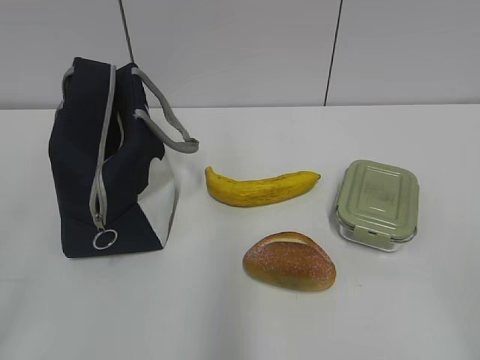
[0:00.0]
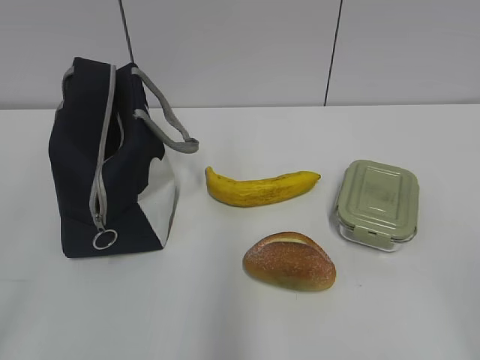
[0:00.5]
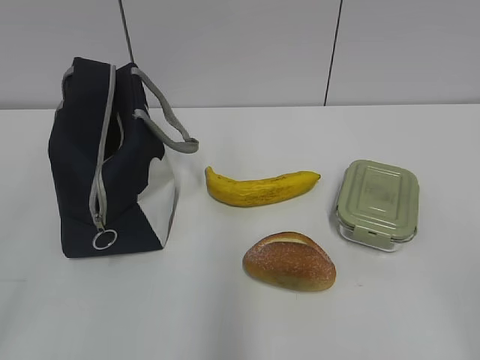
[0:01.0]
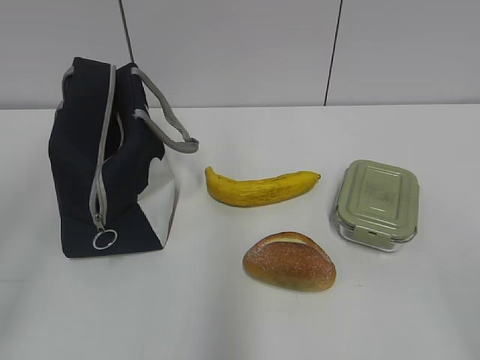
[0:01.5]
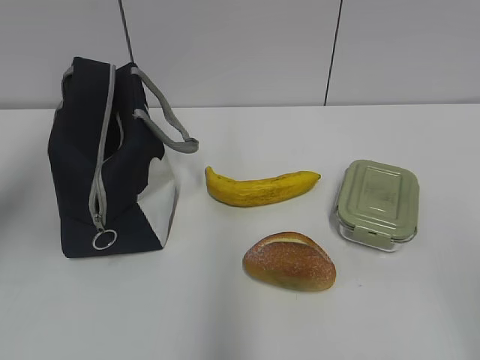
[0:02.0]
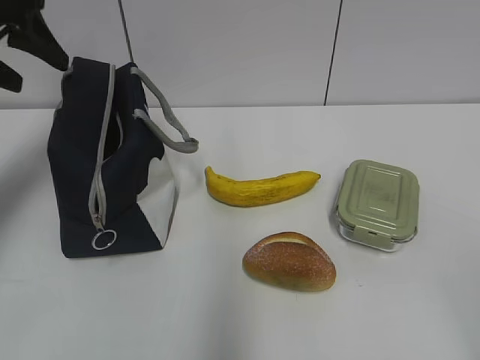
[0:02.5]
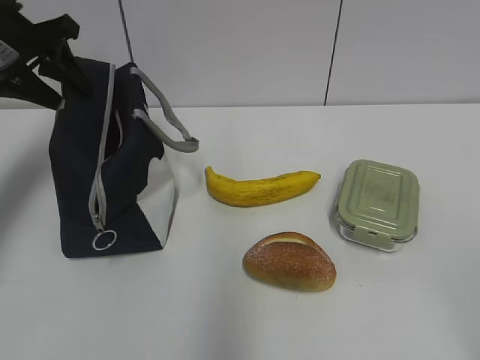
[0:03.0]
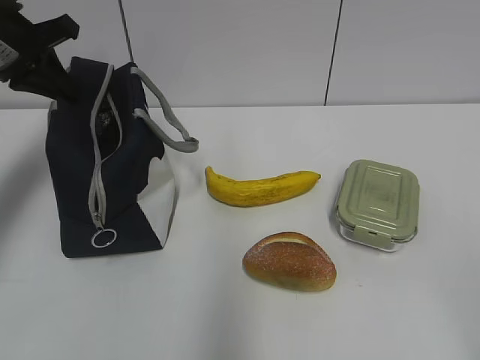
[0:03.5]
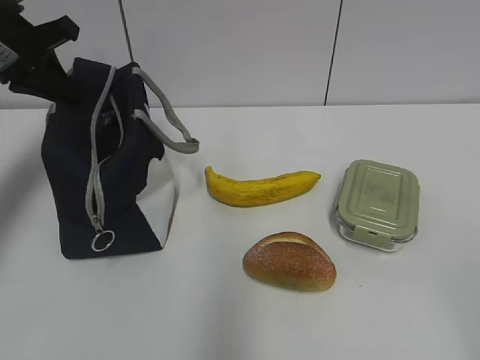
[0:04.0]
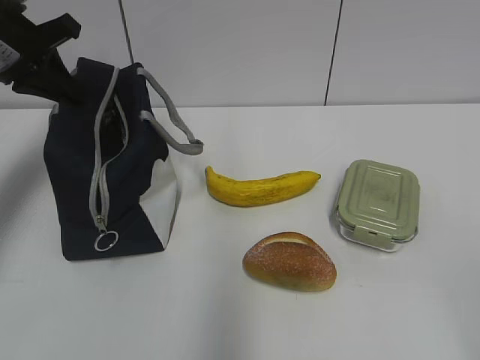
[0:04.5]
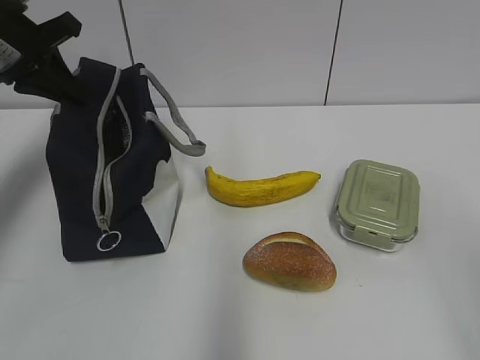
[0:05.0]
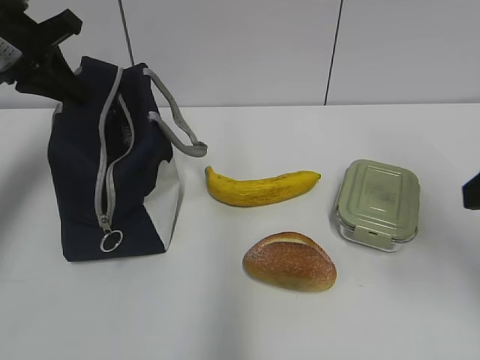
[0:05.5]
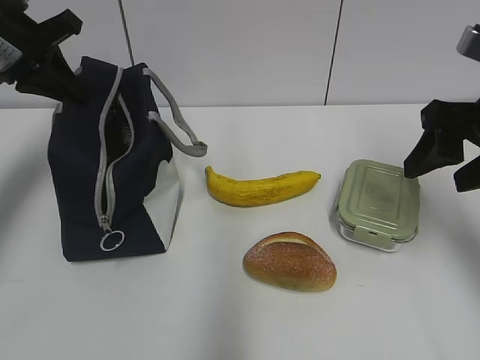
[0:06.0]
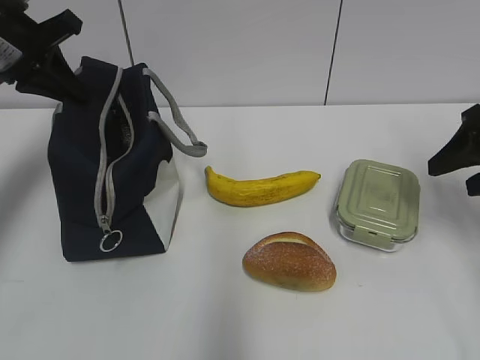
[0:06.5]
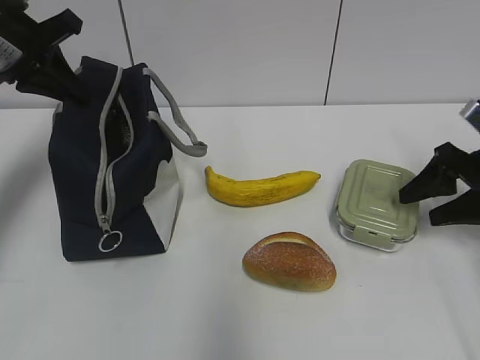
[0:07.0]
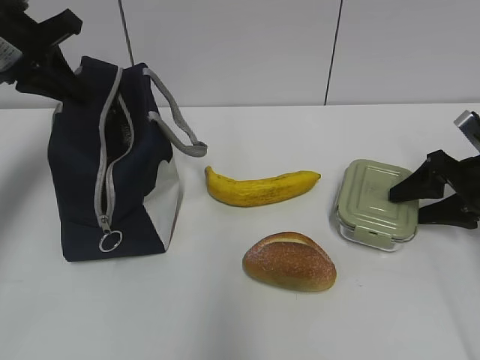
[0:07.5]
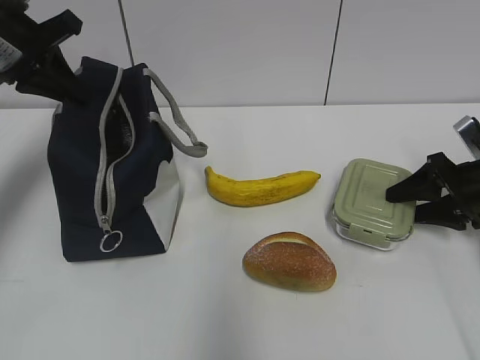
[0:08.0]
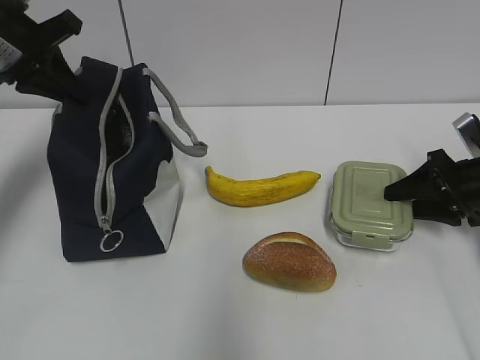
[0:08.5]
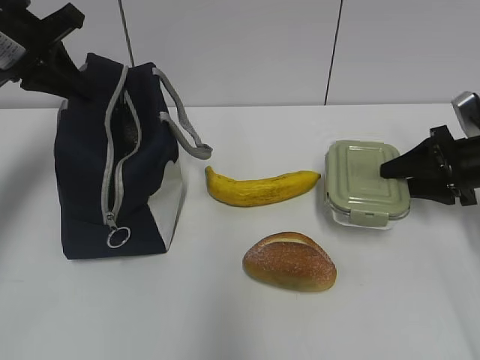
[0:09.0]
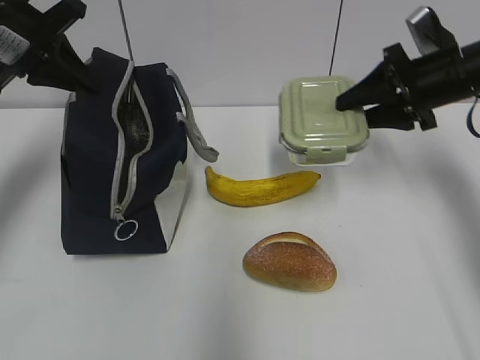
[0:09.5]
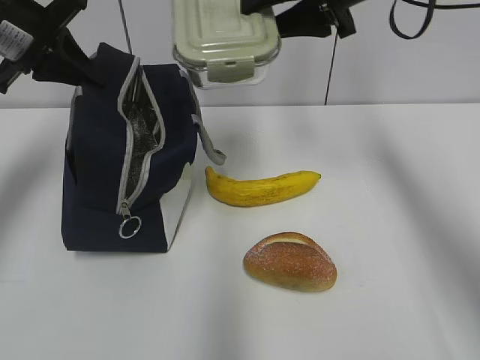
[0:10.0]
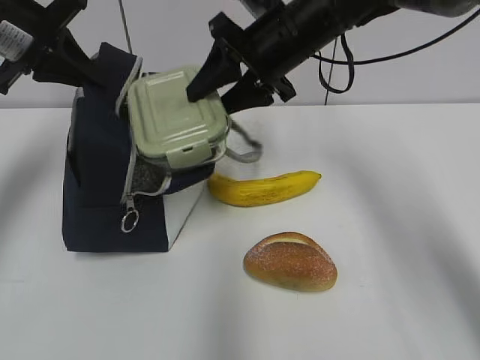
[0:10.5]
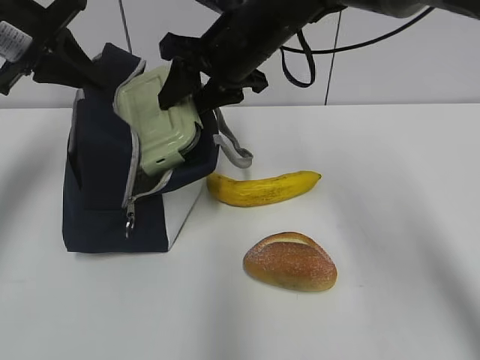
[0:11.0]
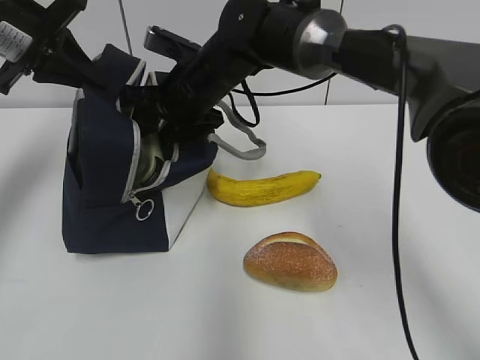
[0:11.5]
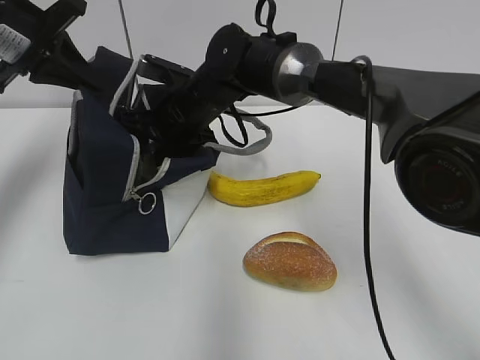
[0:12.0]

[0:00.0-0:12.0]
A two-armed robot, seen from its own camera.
Step, 0:00.0 to 0:08.0: Grab the lunch box with your right hand.
0:02.0 to 0:04.0: The left gripper is displaced forward and downward by approximately 20 cm, and closes its fingers.
0:04.0 to 0:06.0: The right gripper moves forward, some 30 cm.
0:06.0 to 0:08.0: The right gripper moves downward, to the right and forward, approximately 20 cm.
0:08.0 to 0:10.0: The right gripper heads upward and to the left, covering about 30 cm.
0:10.0 to 0:12.0: The right gripper travels to the left and downward by approximately 25 cm.

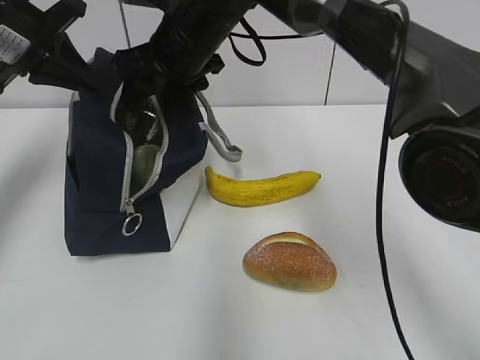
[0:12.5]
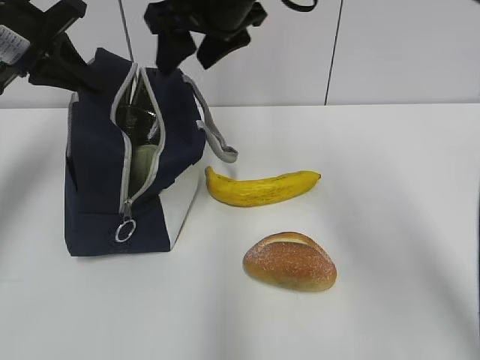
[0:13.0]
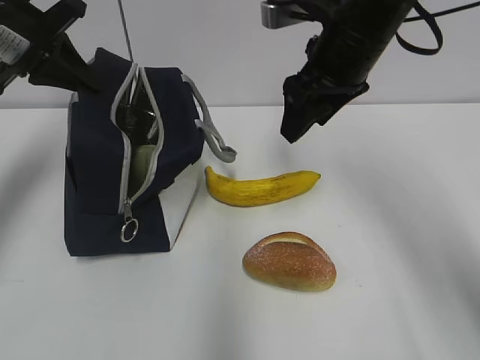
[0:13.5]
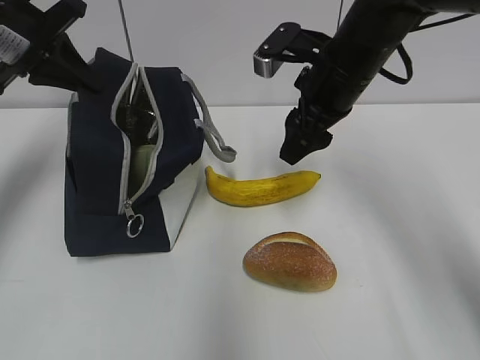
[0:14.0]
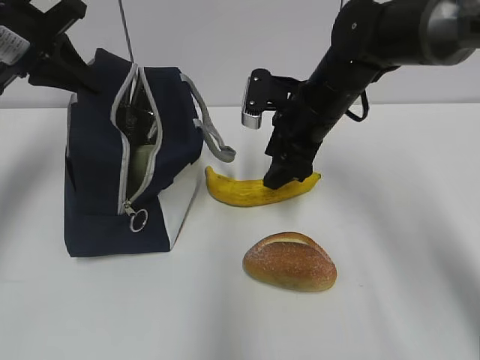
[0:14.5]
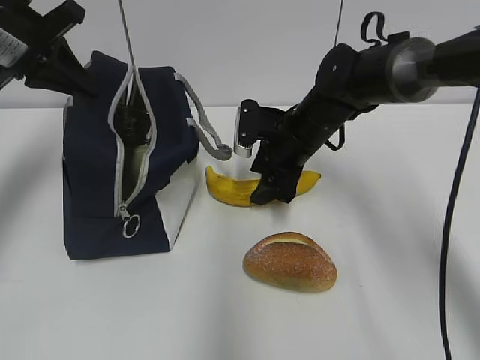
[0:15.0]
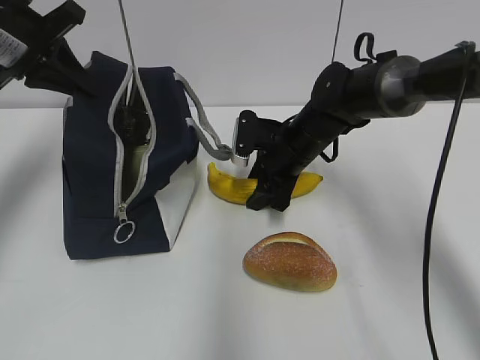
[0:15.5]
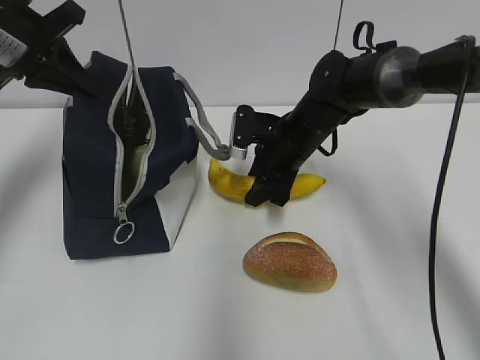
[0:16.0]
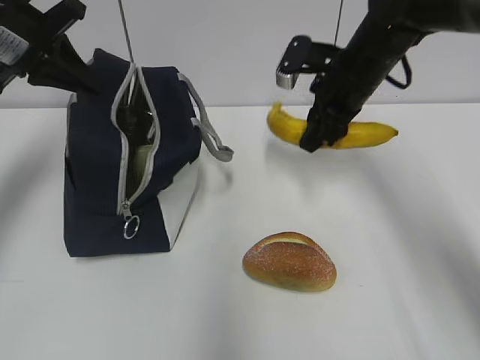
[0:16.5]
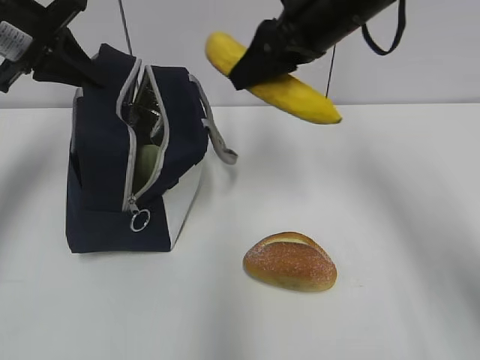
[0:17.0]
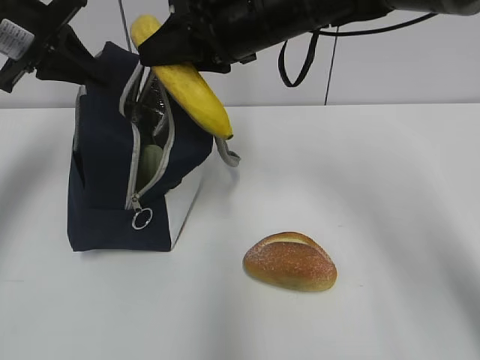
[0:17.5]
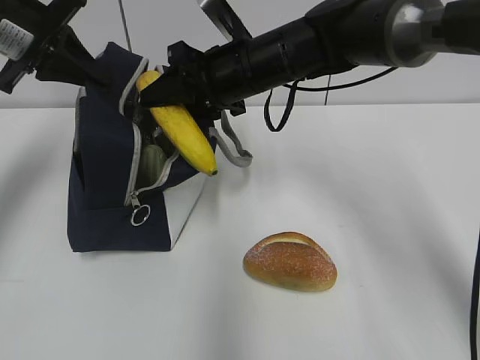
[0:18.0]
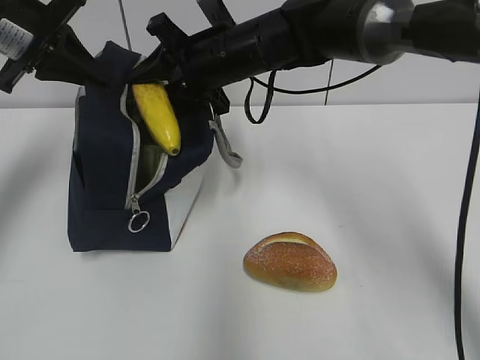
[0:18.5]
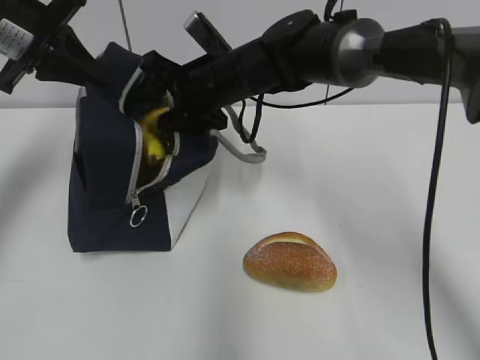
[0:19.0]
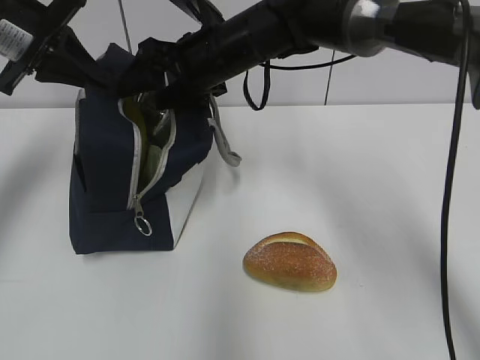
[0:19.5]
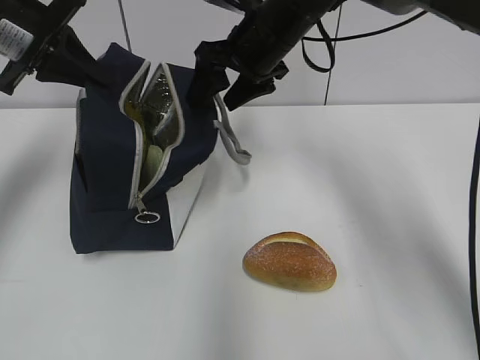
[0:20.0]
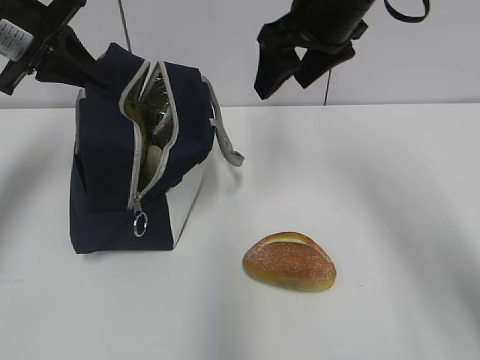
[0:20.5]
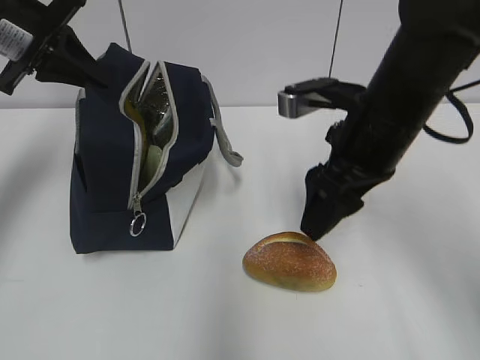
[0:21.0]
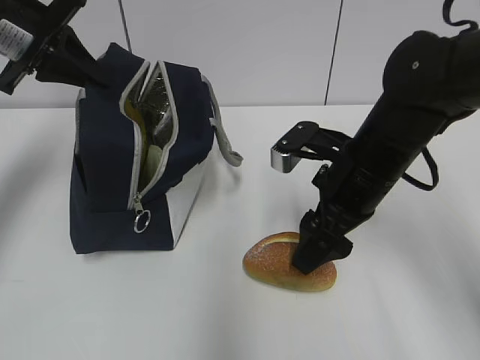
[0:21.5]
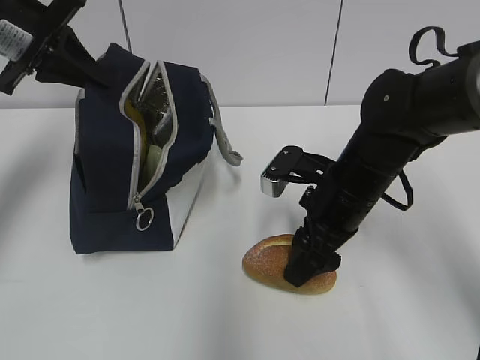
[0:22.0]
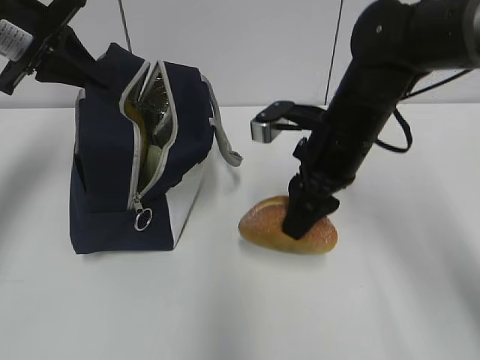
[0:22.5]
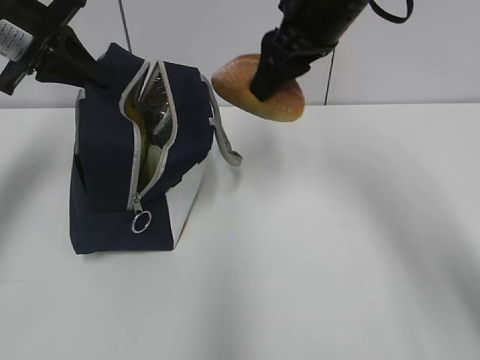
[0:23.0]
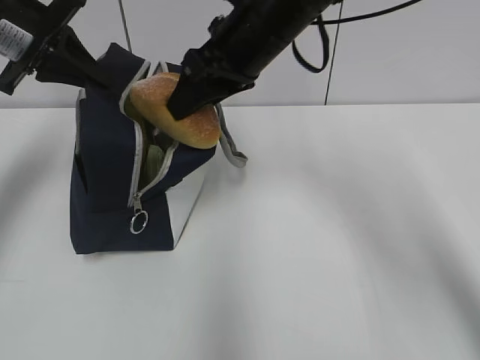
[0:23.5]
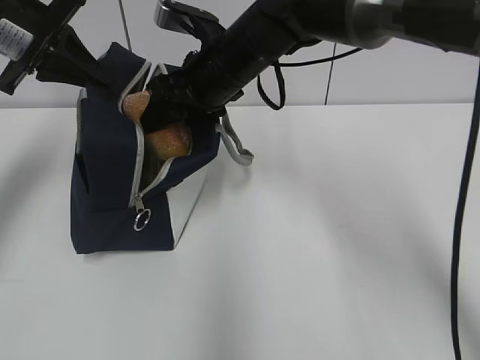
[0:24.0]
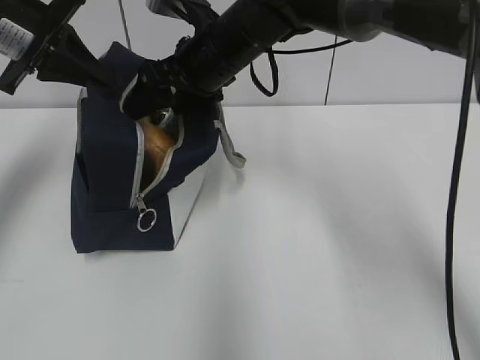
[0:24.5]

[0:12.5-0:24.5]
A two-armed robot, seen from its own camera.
Step, 0:12.5 to 0:15.5: Grab the banana with your right hand.
Step, 0:16.0 to 0:19.0: Place it into the bag with your right hand.
Step, 0:20.0 to 0:22.0: Grab the bread with your right hand.
0:12.5 to 0:14.5: The right gripper travels to the right and downward by approximately 15 cm.
0:14.5 to 0:16.5: The right gripper reaches approximately 5 cm downward, then returns.
0:16.5 to 0:18.5: The right gripper goes some 15 cm to the left.
0:18.5 to 0:20.5: The right gripper travels to the right and upward by some 15 cm, and opens up.
0:20.5 to 0:22.5: The right gripper goes about 15 cm downward and backward, and closes its fingers.
0:22.5 to 0:24.5: The right gripper travels to the left, forward and upward by about 15 cm, and opens.

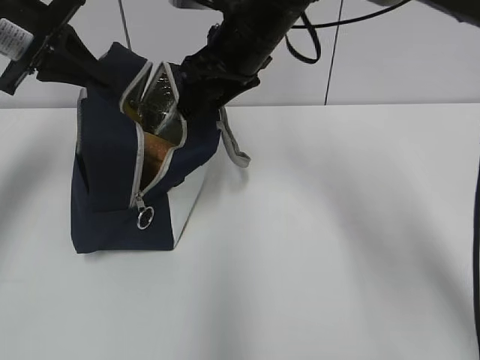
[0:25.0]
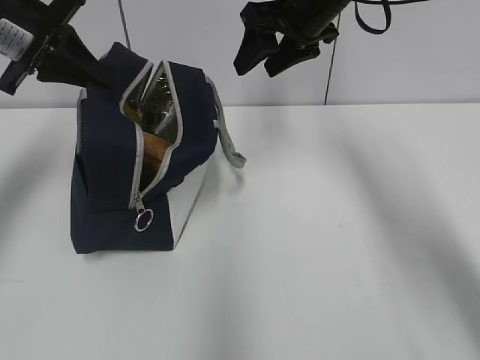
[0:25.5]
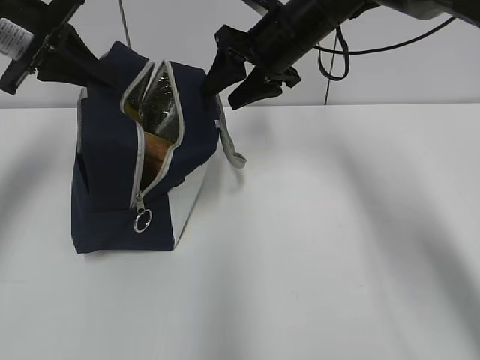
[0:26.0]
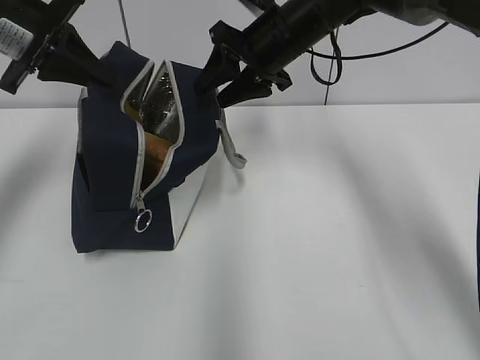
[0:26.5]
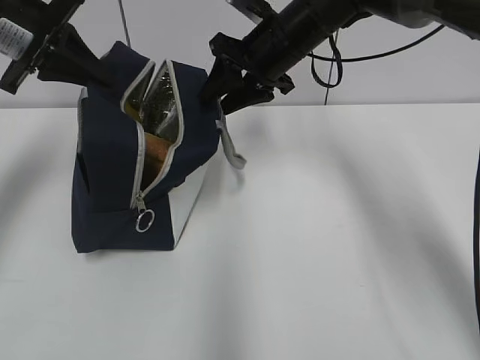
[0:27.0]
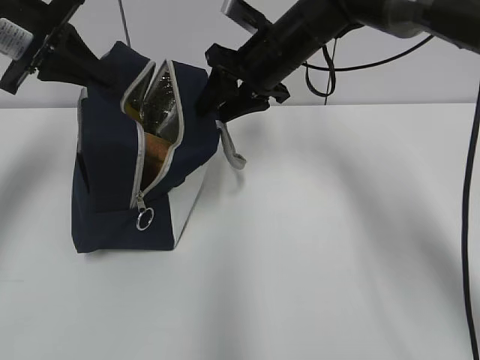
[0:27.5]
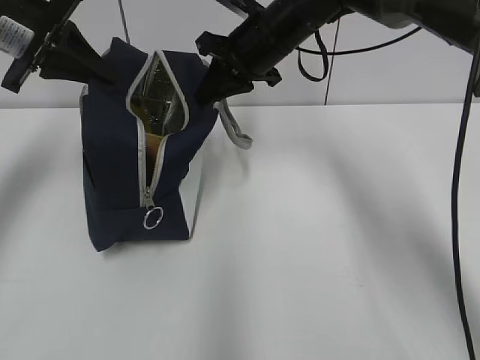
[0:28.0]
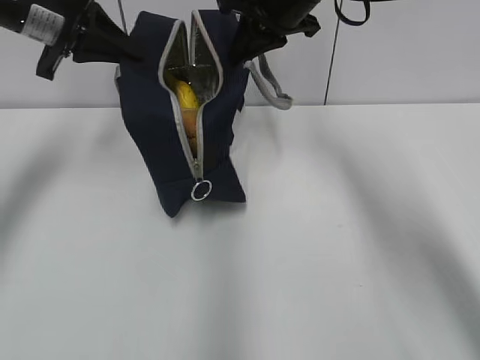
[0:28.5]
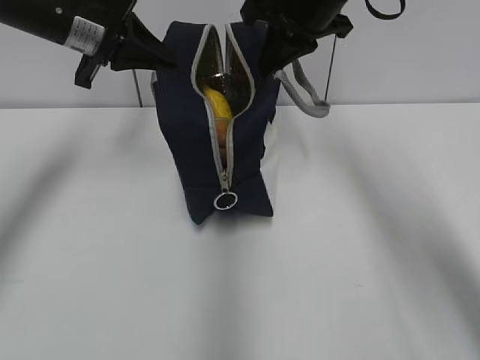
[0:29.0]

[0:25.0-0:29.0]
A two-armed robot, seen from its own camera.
Step, 0:25.0 to 0:27.5: Grab the lunch bag with your right hand.
0:25.0 to 0:27.0: The right gripper changes place by about 5 cm.
0:27.0 to 0:29.0: The right gripper shifts some 5 cm upward, and closes. Meanwhile the left gripper moves to the right, approximately 5 cm.
